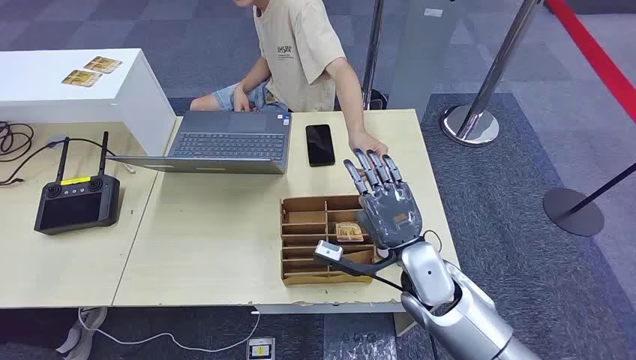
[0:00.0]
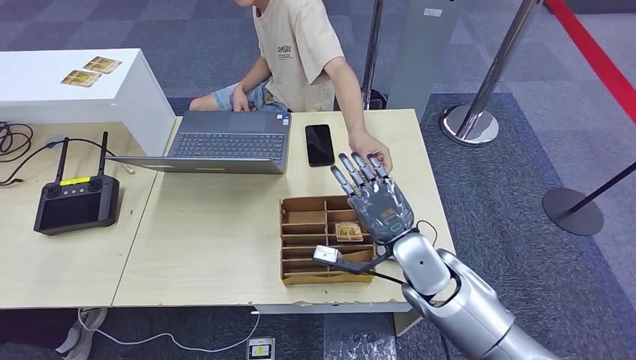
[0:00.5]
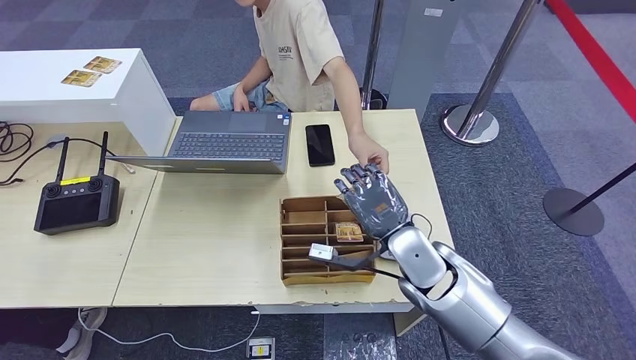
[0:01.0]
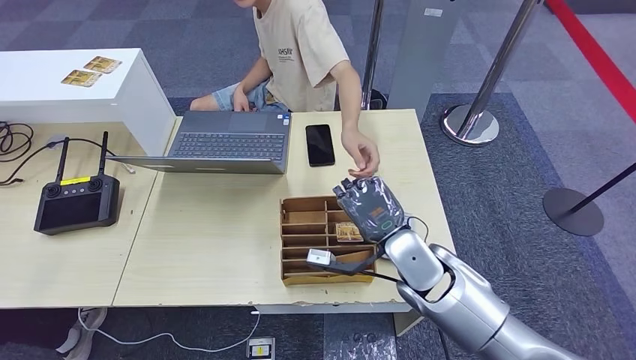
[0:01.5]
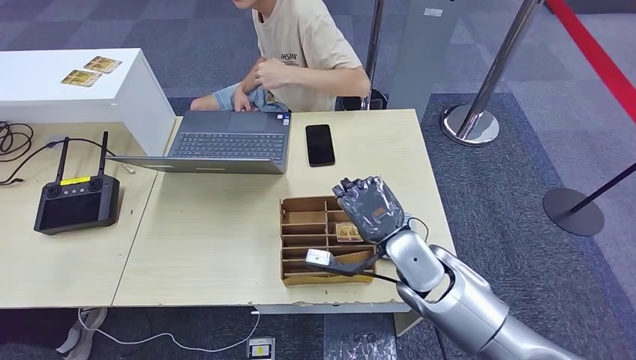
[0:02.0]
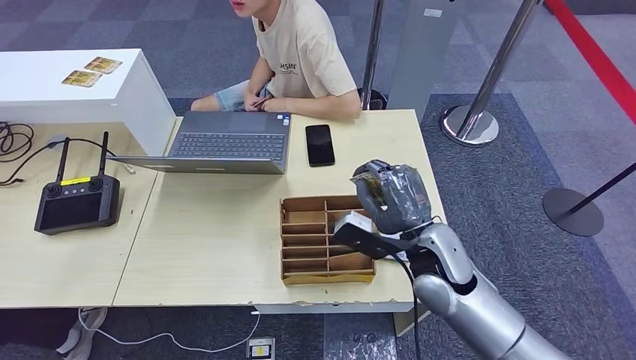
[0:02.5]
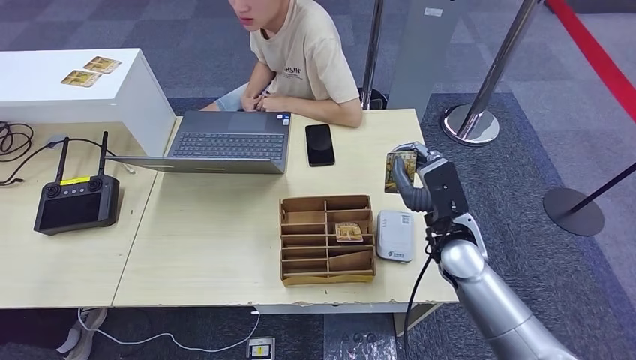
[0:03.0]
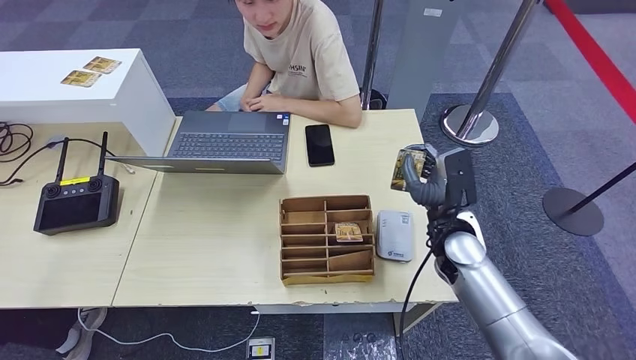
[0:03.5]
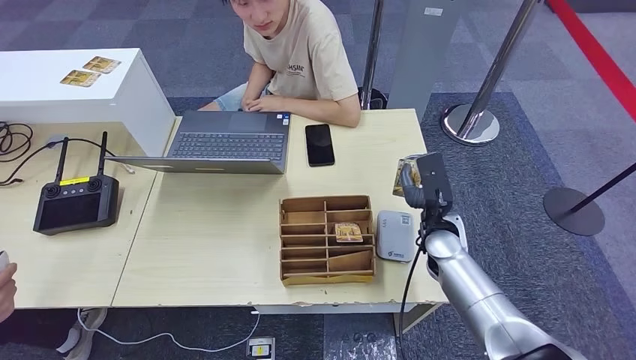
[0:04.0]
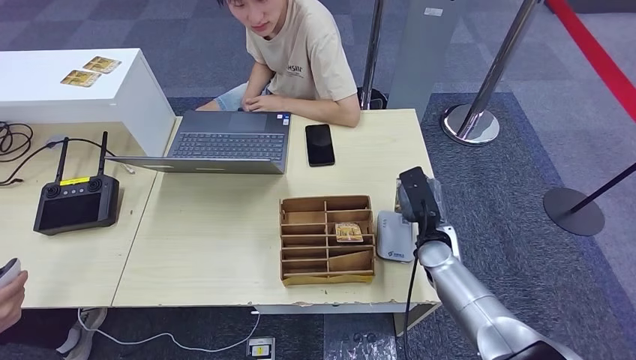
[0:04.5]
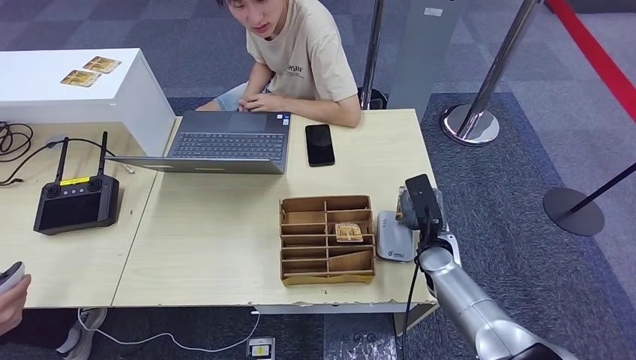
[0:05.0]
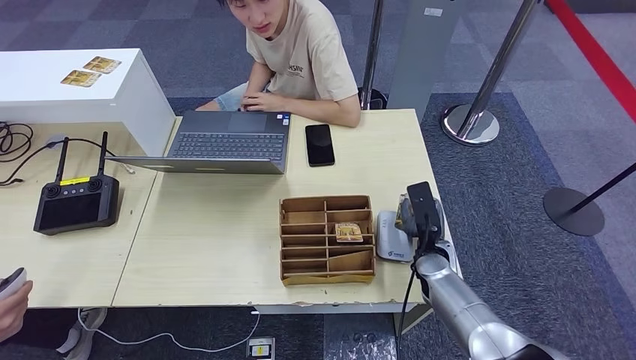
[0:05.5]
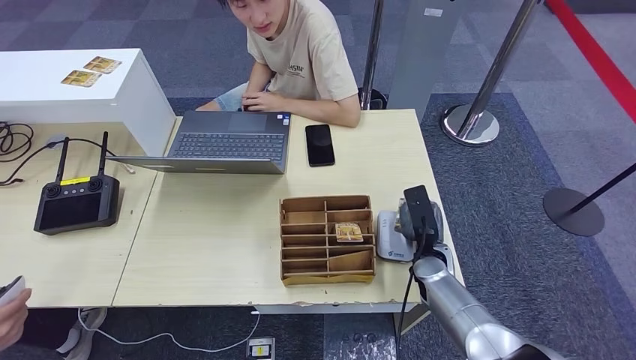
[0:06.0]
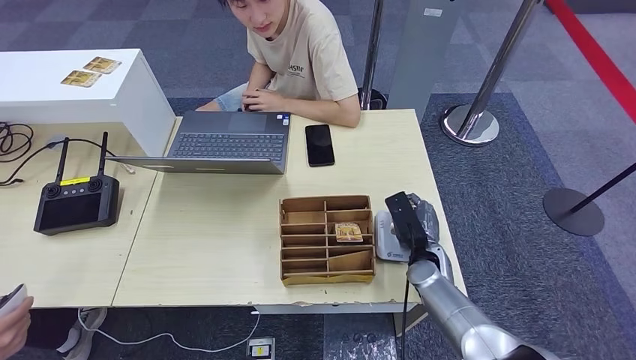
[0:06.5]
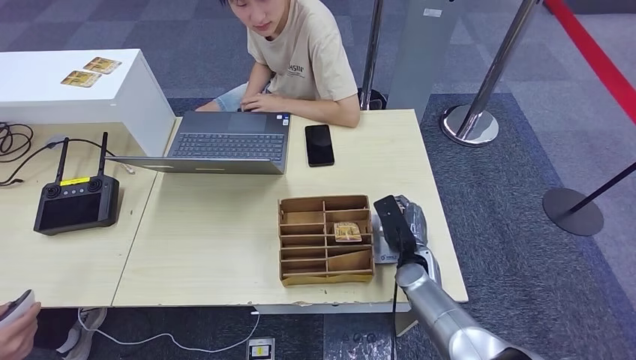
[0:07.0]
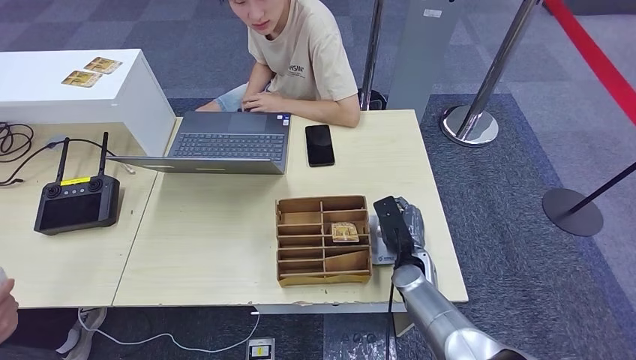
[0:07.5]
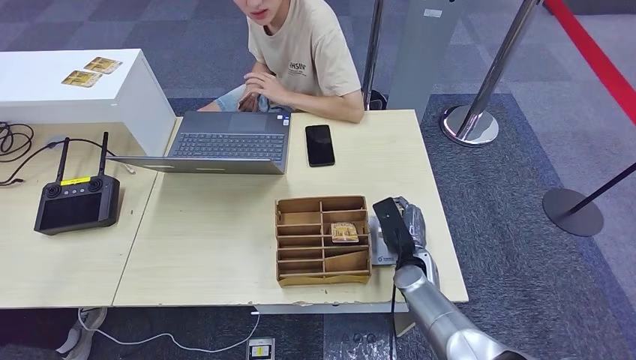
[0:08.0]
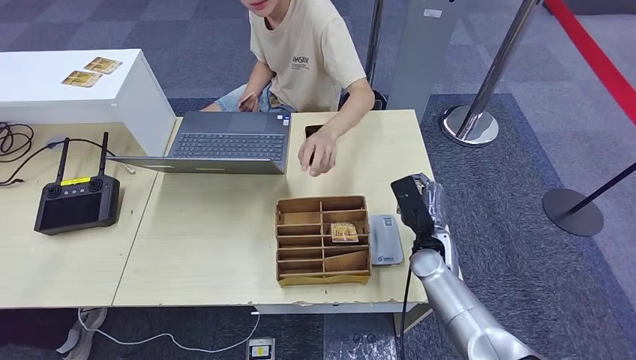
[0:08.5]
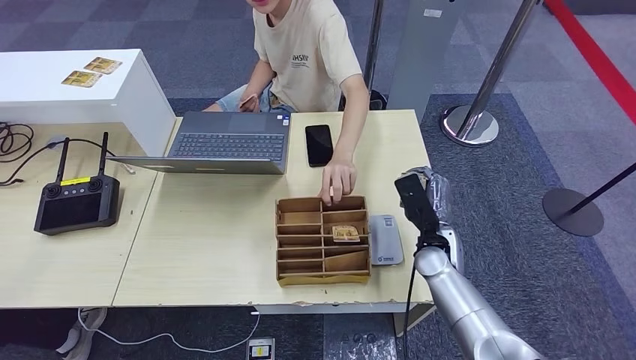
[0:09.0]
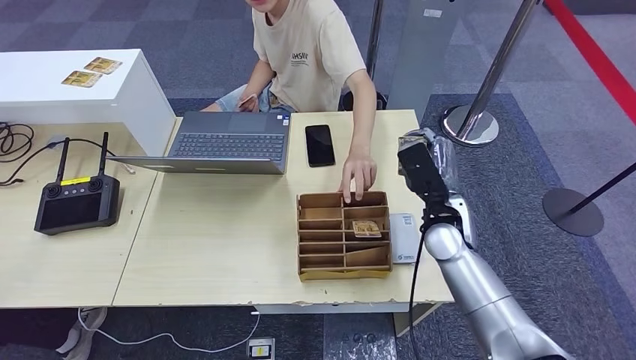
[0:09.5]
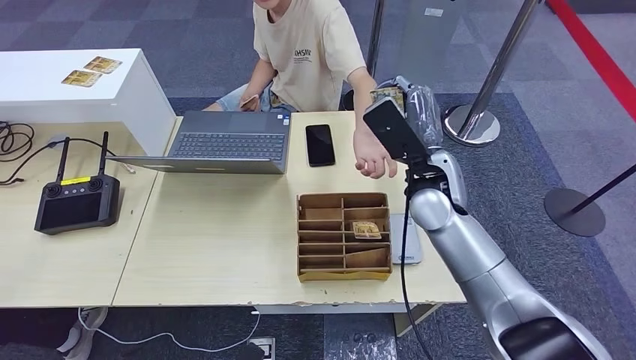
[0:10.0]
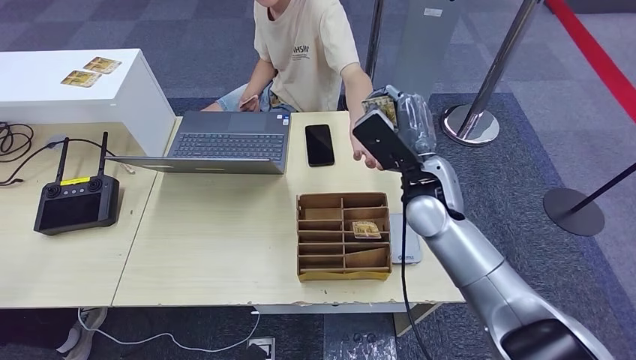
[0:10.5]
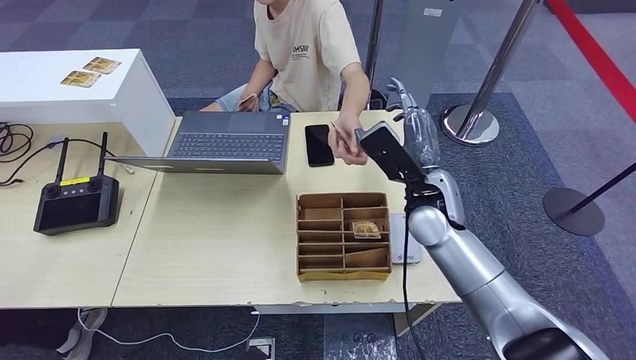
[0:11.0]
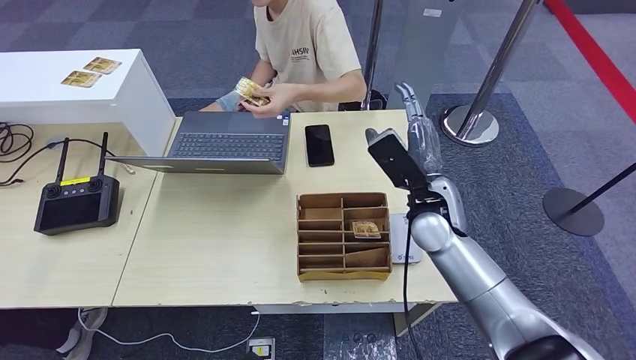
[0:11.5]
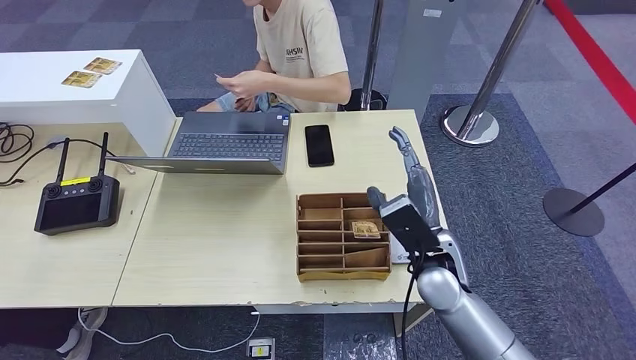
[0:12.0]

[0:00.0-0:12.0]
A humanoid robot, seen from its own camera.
Step, 0:00.0 to 0:02.0: Take the ID card from the person's hand.
Step, 0:03.0 to 0:06.0: Place the ID card on the card reader.
0:02.0 to 0:04.0: The right hand is displaced to the right and forward by about 10 cm.
0:04.0 to 0:06.0: The right hand shifts some 10 cm downward.
0:06.0 to 0:08.0: The hands move only a little.
0:08.0 to 0:10.0: The right hand moves upward, roughly 25 cm.
0:10.0 to 0:12.0: The right hand travels downward and backward by some 15 cm.

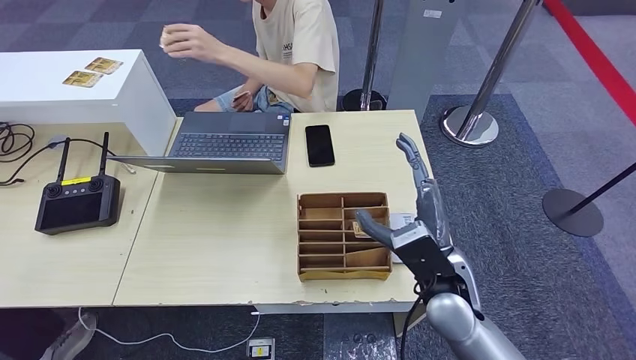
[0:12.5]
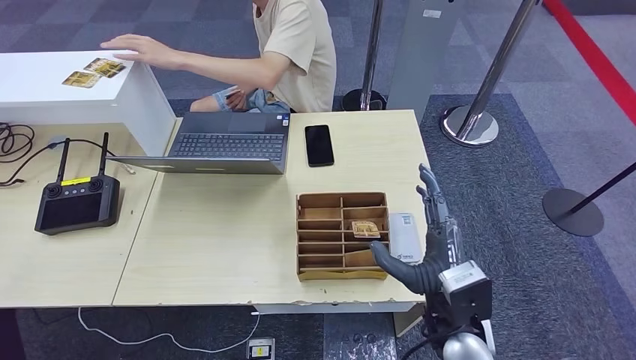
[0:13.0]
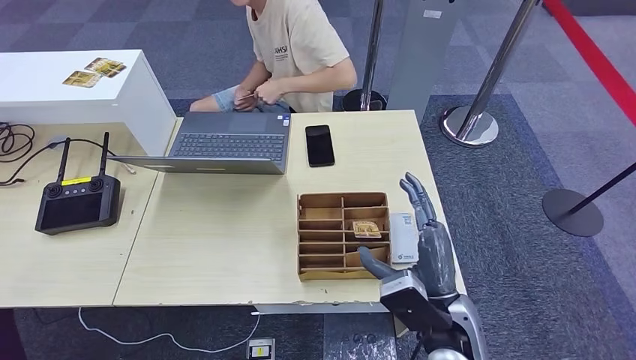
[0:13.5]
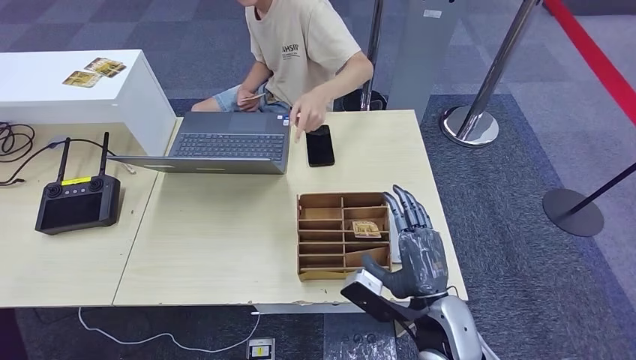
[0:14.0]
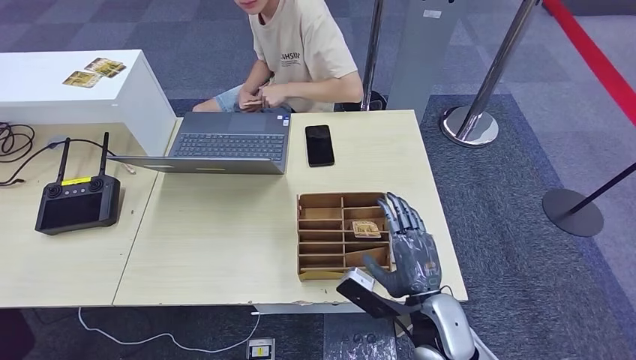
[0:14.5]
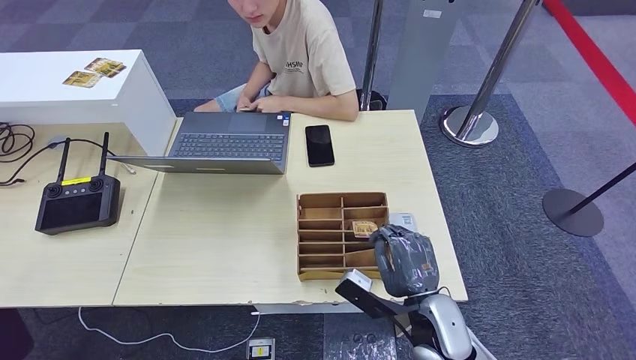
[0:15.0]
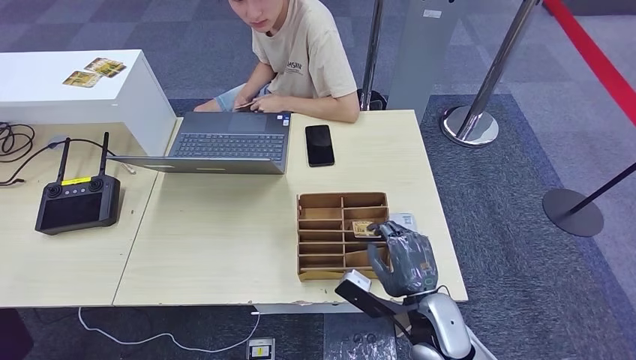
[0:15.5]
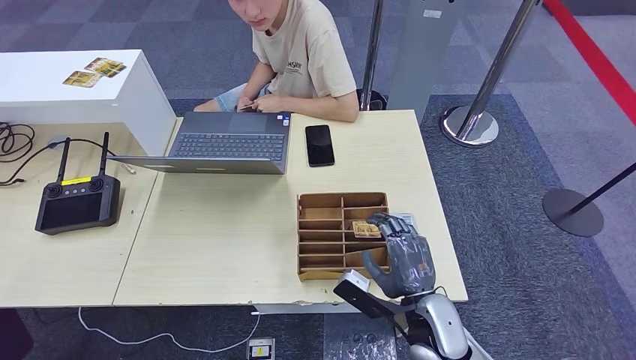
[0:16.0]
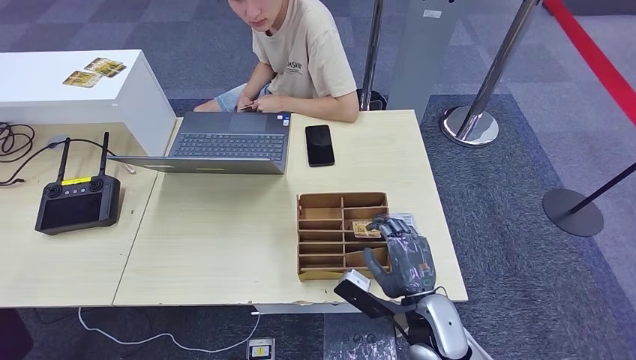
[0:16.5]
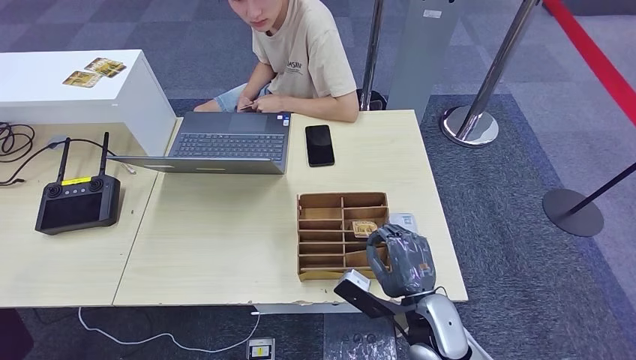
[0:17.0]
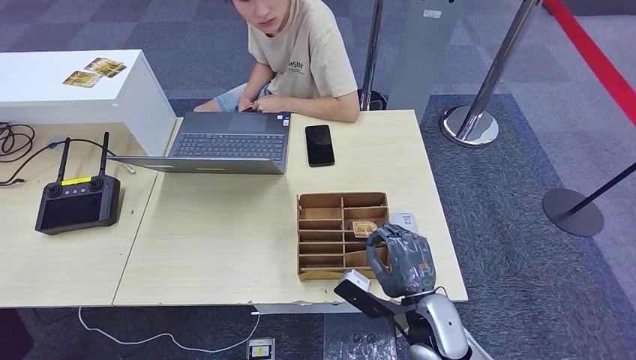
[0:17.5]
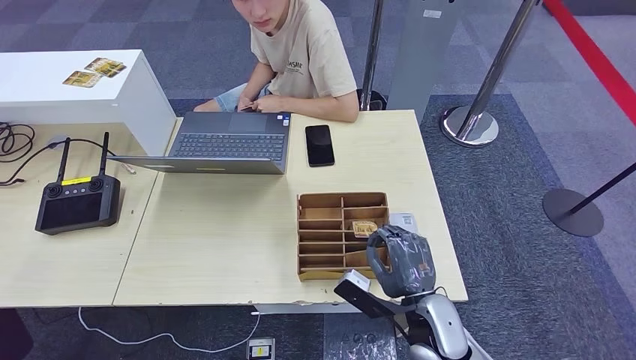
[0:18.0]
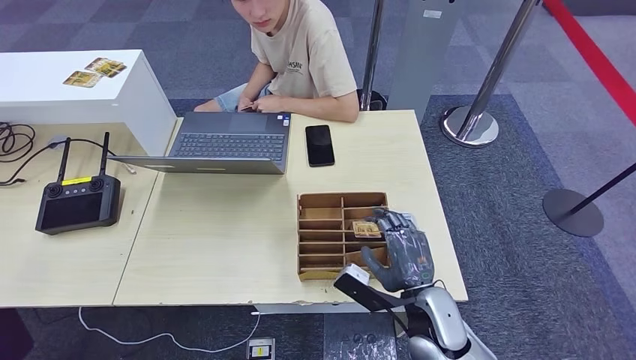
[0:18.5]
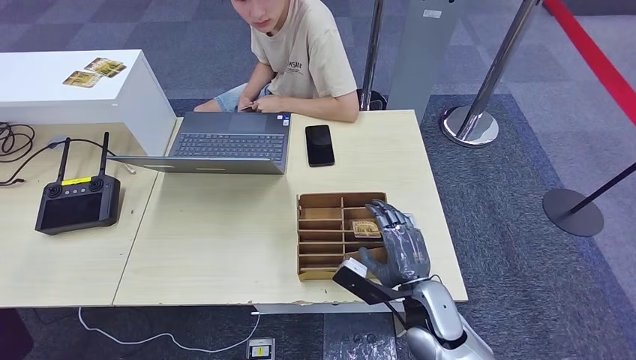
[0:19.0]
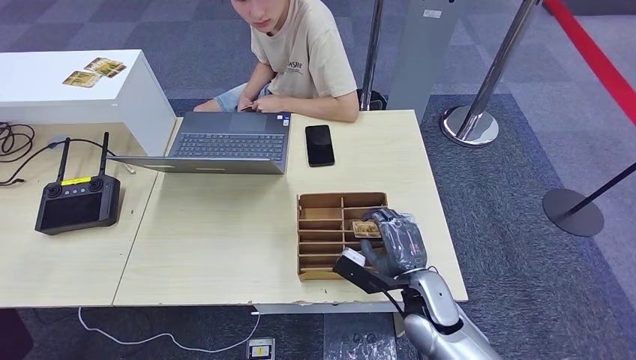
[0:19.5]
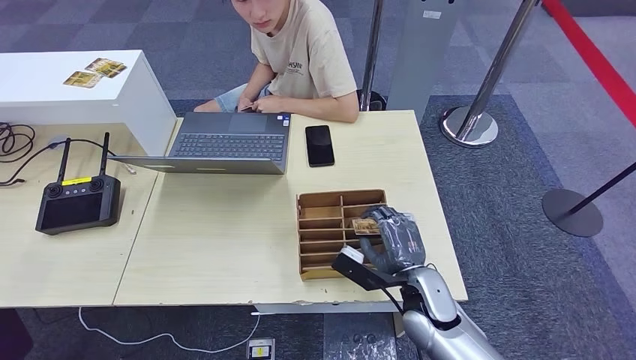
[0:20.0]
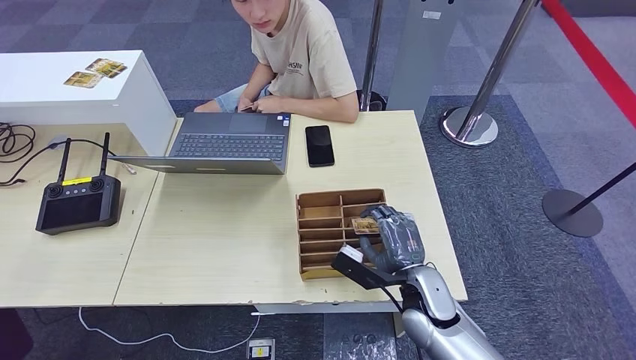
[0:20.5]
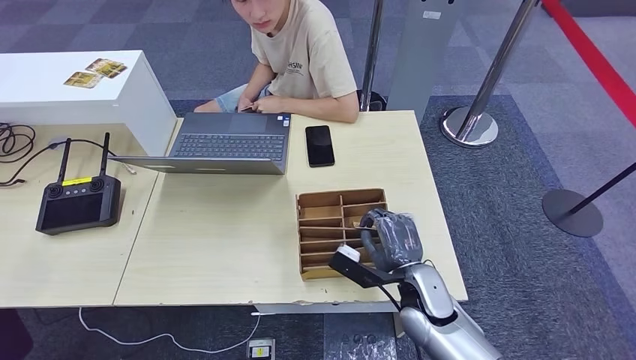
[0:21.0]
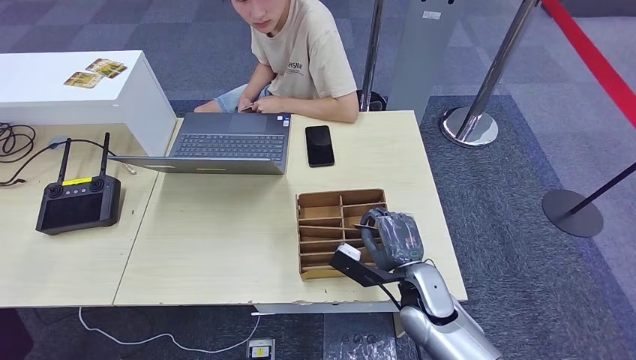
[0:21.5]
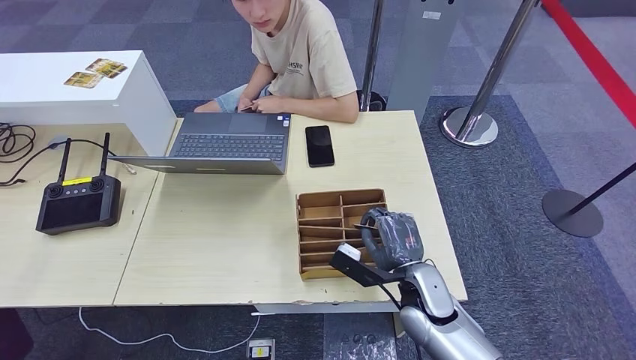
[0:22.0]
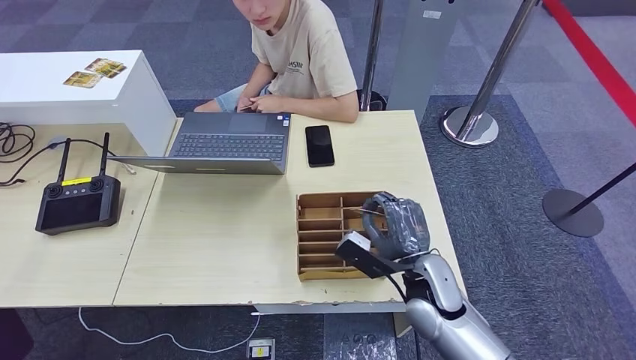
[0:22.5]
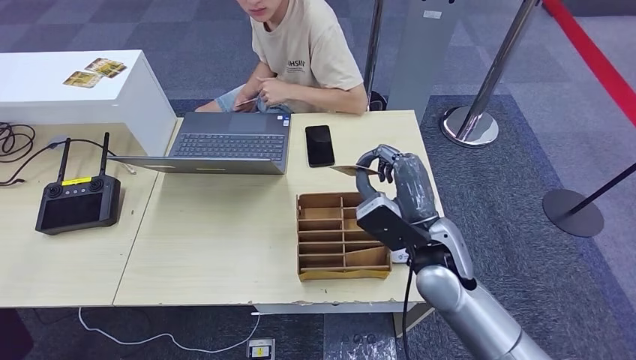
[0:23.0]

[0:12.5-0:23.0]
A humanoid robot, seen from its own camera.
0:12.5 to 0:14.5: The right hand travels downward by about 5 cm.
0:14.5 to 0:19.0: The hands stay close to where they were, moving slightly.
0:19.0 to 0:21.0: The hands move only a little.
0:21.0 to 0:23.0: The right hand heads upward, covering roughly 10 cm.
